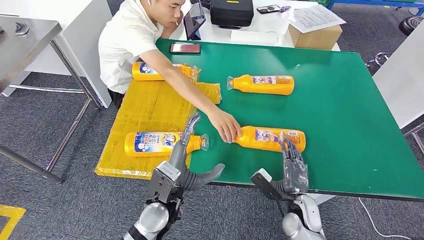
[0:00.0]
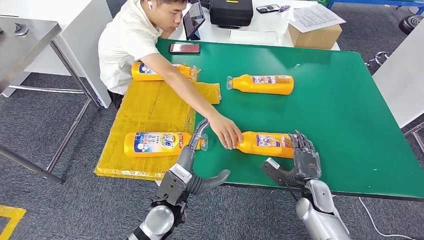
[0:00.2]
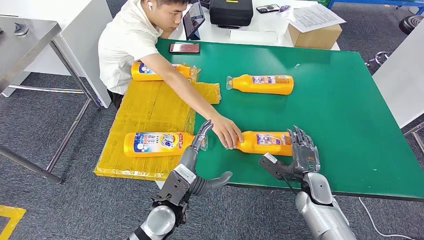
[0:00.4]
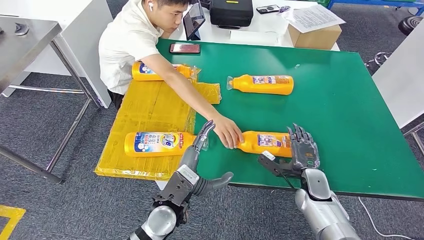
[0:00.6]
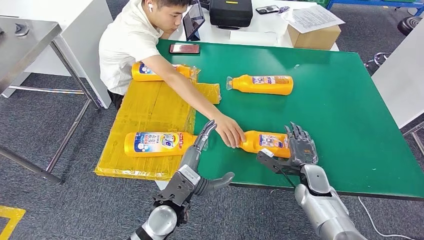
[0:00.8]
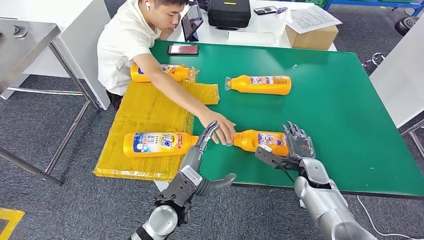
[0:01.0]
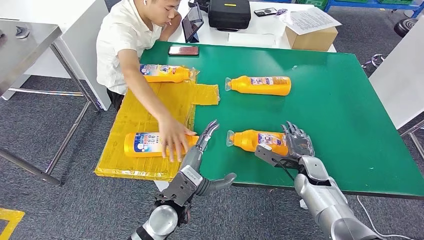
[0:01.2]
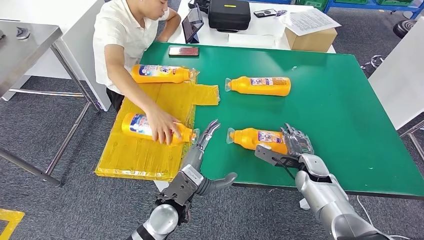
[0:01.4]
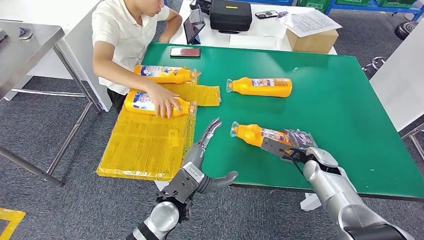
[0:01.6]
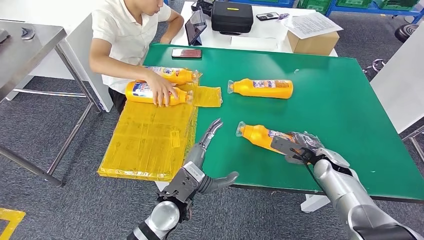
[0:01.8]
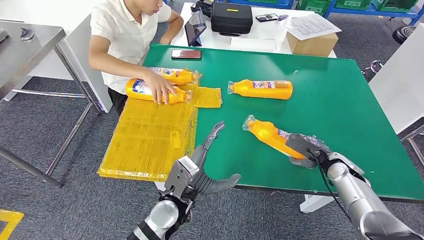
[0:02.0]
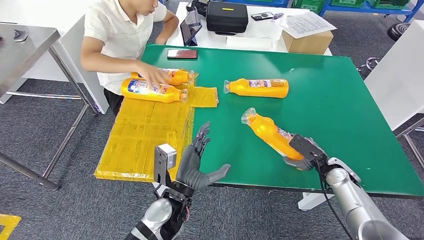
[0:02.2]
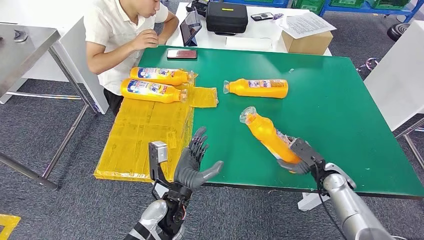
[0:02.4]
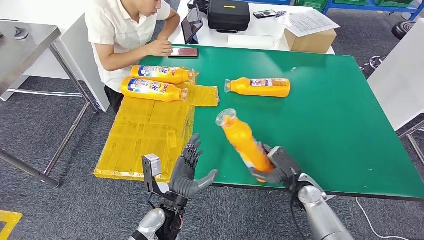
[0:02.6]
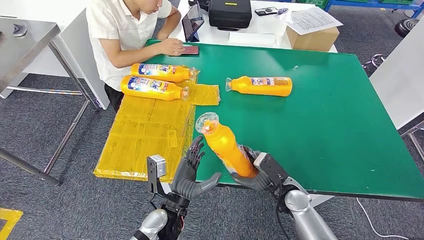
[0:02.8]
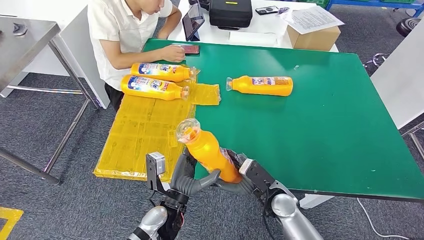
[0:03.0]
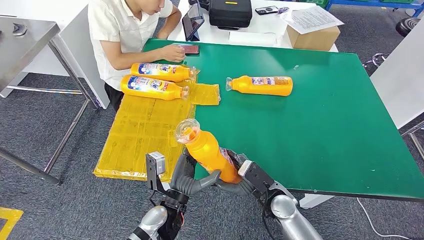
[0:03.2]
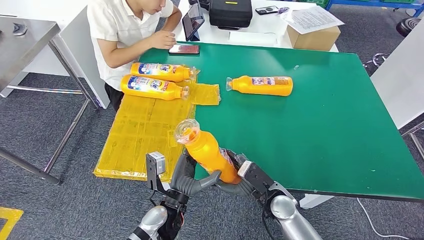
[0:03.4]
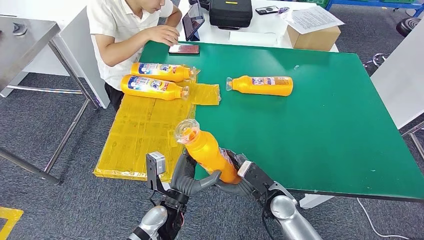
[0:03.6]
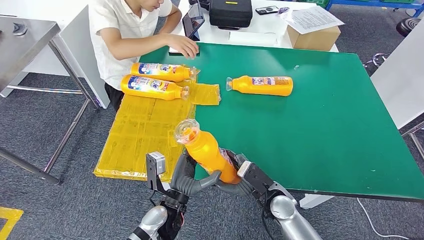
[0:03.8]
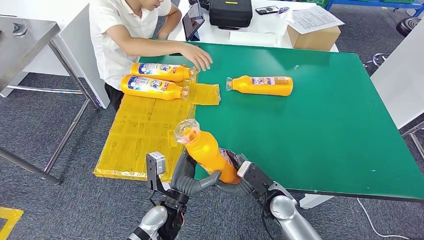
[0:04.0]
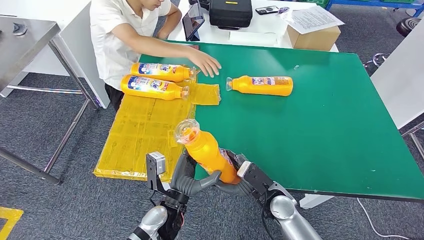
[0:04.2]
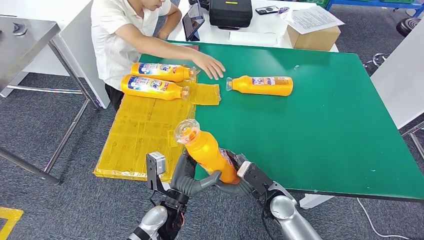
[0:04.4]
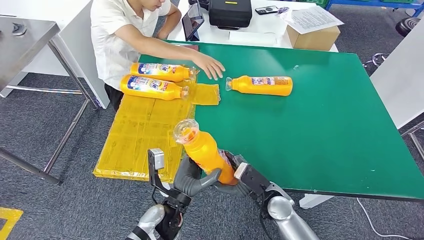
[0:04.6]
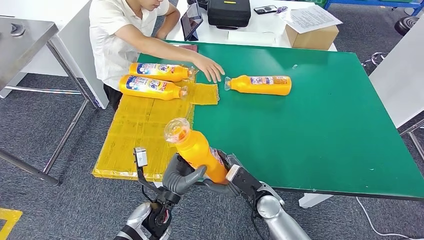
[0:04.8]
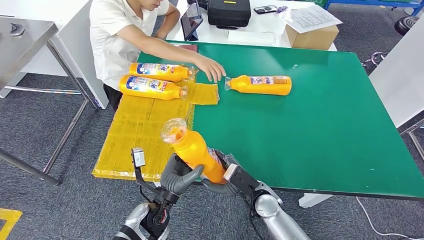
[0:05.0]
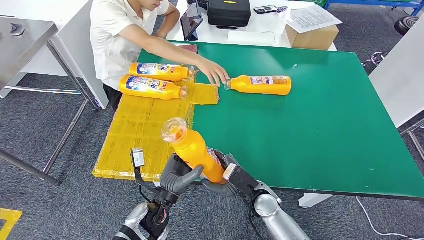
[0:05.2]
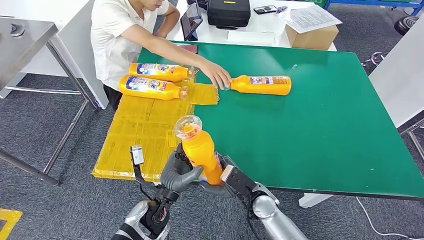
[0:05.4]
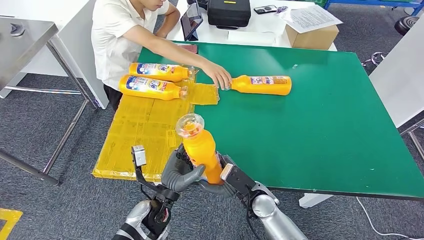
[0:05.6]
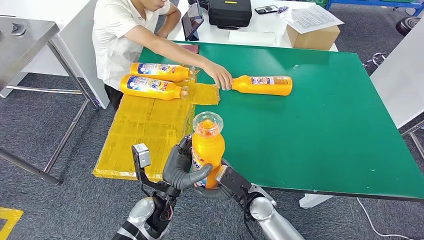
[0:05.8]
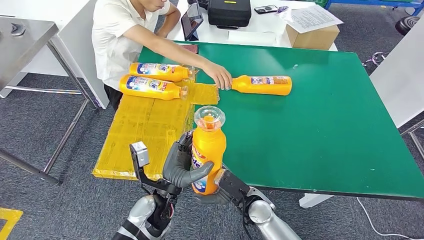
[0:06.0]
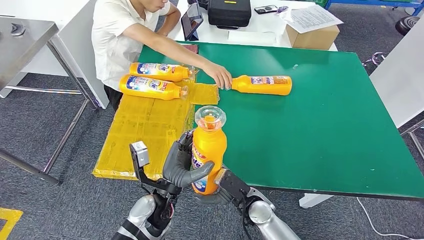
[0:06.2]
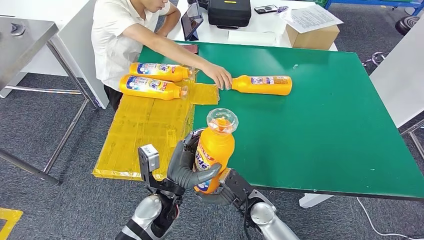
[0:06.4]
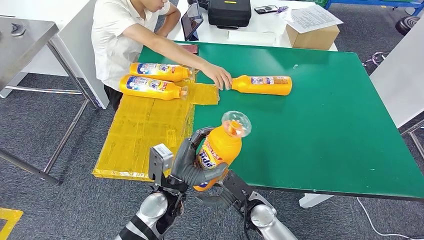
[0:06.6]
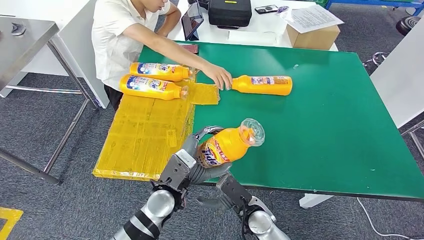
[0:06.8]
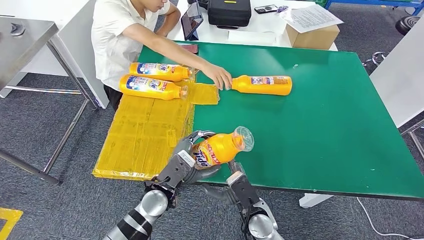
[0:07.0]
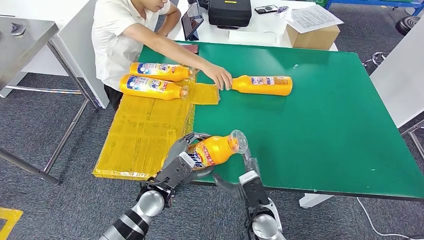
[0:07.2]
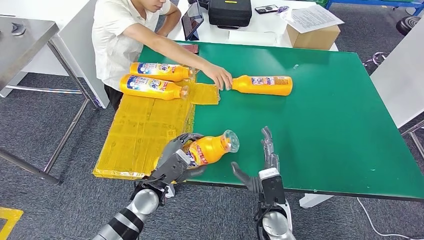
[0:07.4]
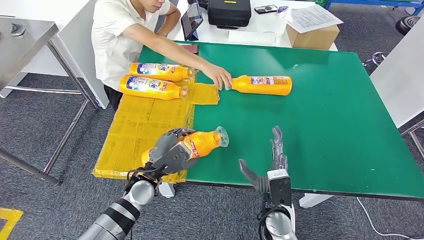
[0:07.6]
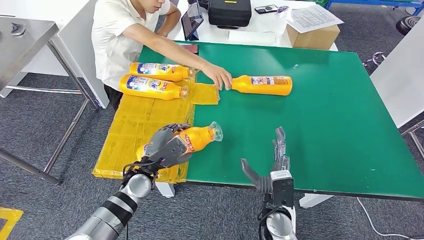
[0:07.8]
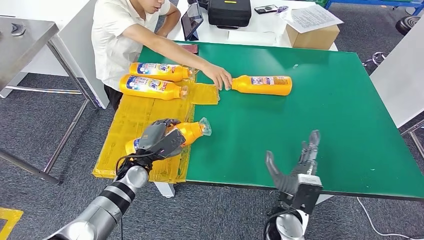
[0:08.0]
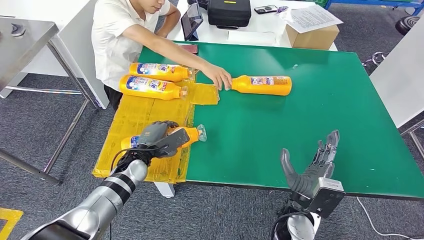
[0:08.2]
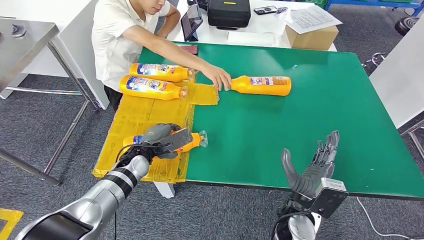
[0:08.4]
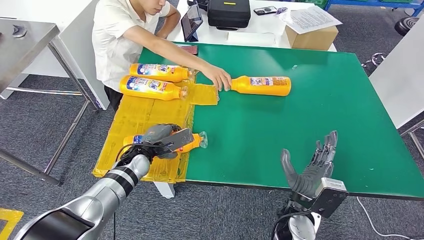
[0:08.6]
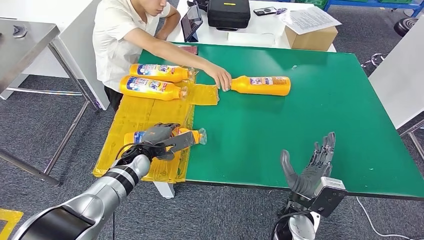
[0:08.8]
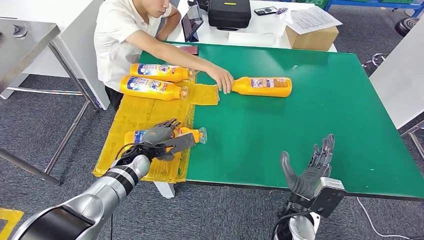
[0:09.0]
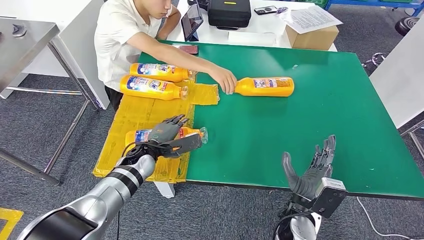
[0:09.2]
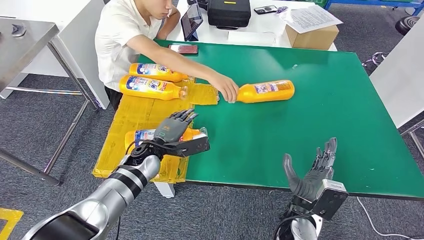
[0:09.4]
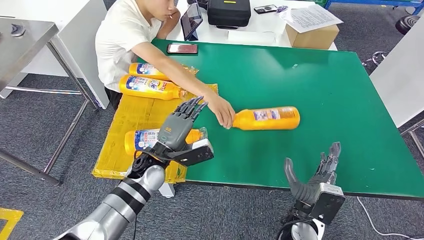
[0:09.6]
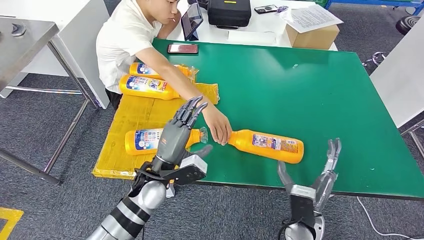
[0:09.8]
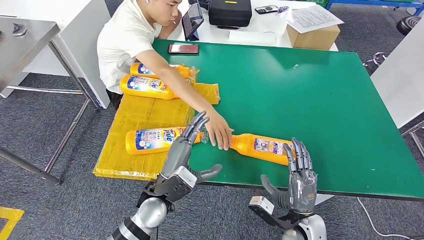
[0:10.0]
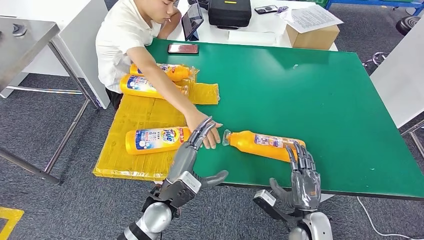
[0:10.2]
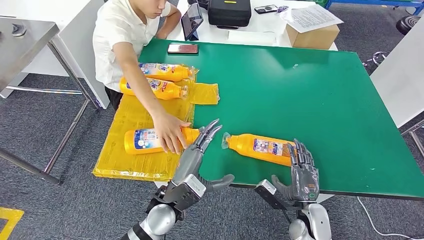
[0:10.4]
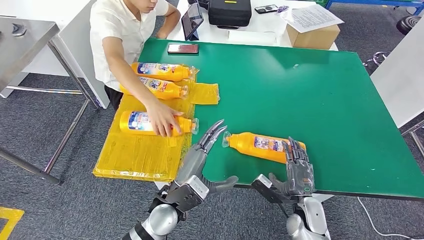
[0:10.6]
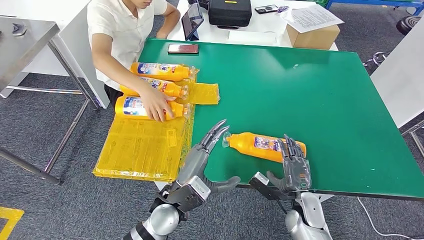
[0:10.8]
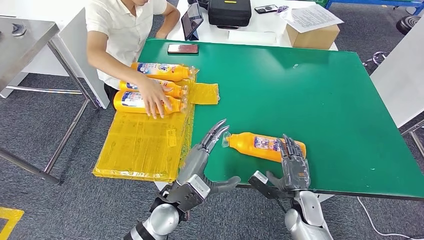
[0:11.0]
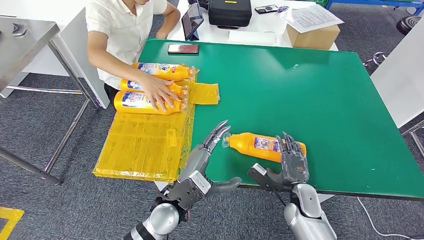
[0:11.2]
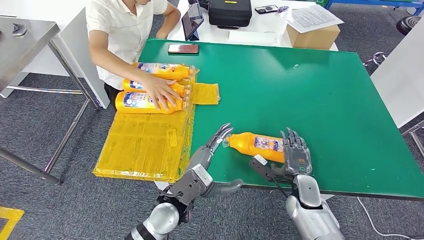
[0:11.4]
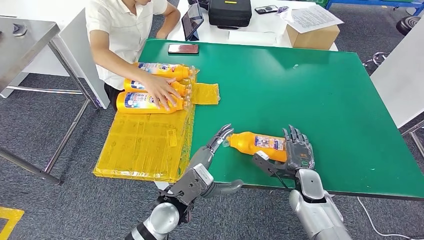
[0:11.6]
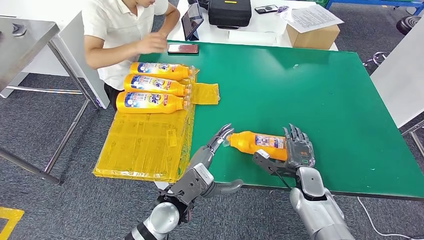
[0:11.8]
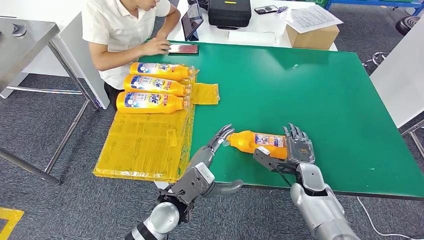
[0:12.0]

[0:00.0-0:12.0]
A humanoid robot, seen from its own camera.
Step, 0:00.0 to 0:02.8: Pick up the fast-moving consumer goods bottle from the table.
Step, 0:03.0 to 0:09.0: Flip the fast-moving consumer goods bottle to the front side.
0:03.0 to 0:04.4: Neither hand changes place.
0:04.4 to 0:06.0: The right hand heads to the left, covering roughly 5 cm.
0:06.0 to 0:07.6: The right hand changes place by some 5 cm. The left hand travels to the left and forward by approximately 10 cm.
0:10.4 to 0:12.0: The right hand goes about 10 cm forward.

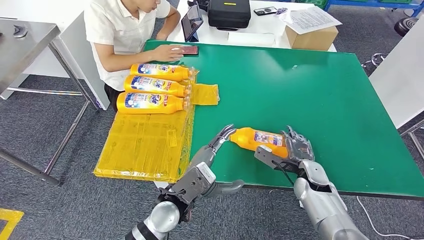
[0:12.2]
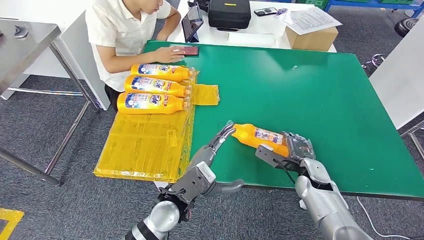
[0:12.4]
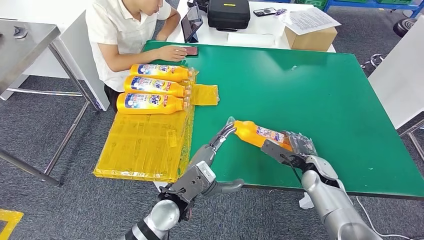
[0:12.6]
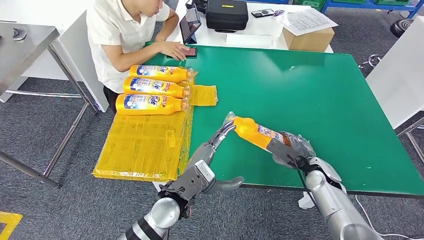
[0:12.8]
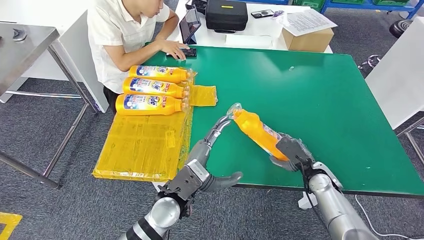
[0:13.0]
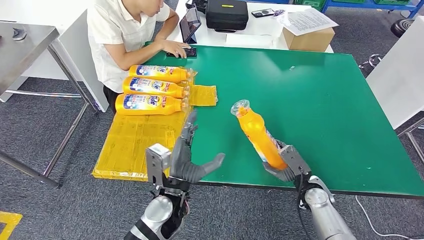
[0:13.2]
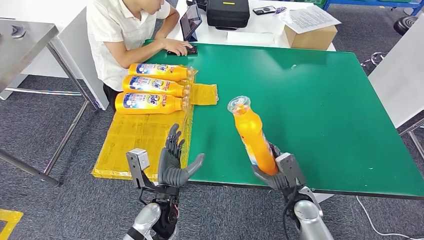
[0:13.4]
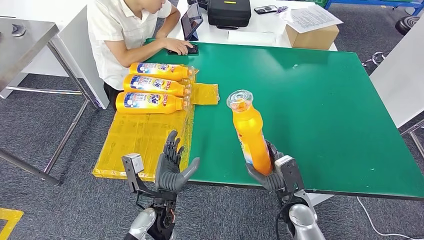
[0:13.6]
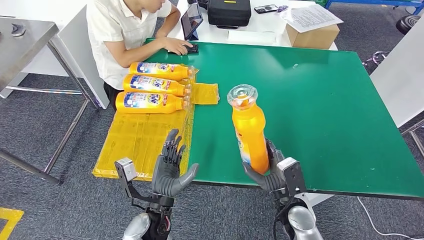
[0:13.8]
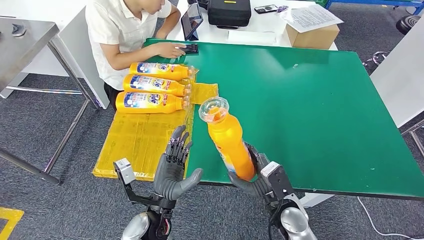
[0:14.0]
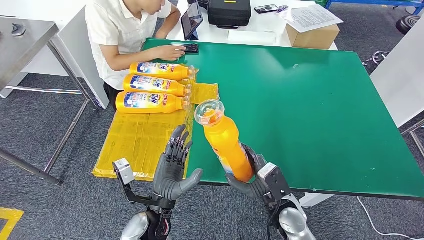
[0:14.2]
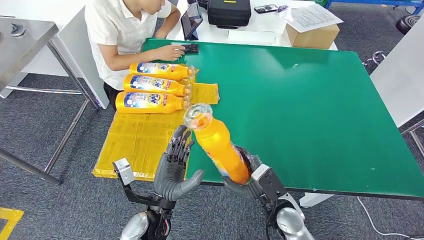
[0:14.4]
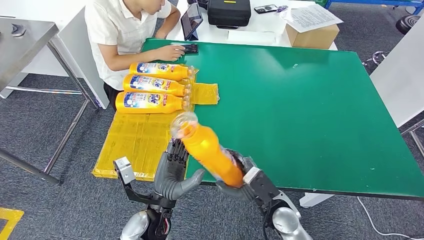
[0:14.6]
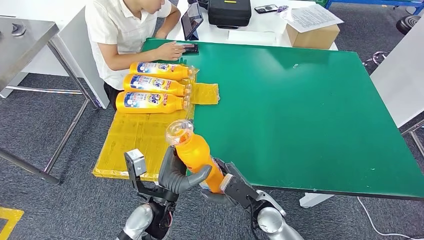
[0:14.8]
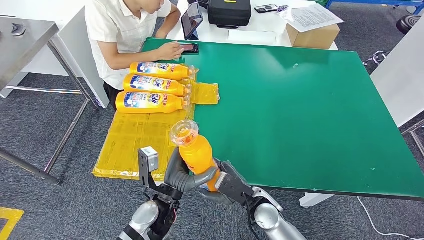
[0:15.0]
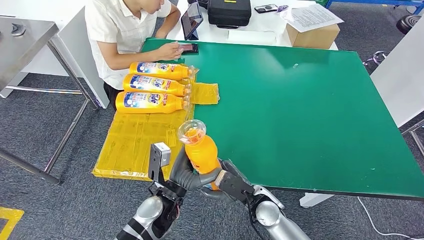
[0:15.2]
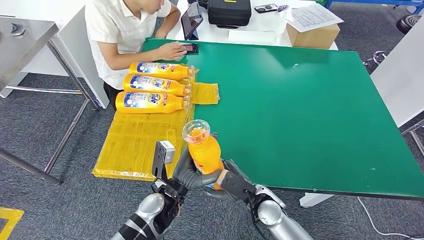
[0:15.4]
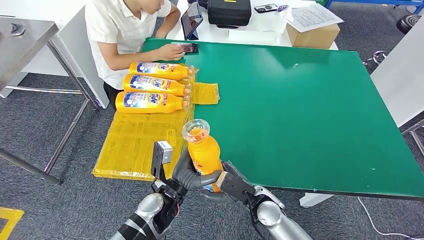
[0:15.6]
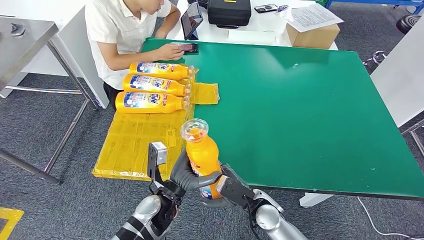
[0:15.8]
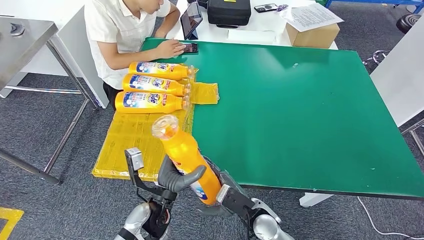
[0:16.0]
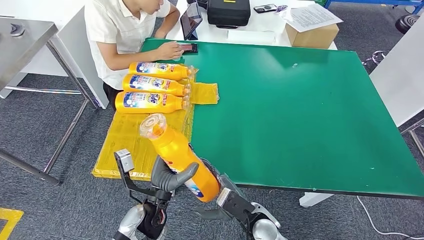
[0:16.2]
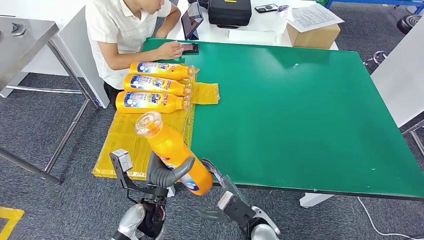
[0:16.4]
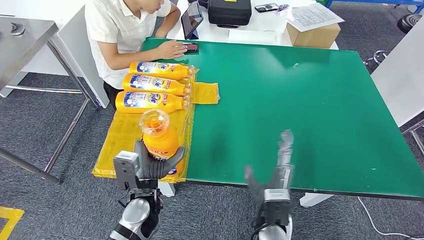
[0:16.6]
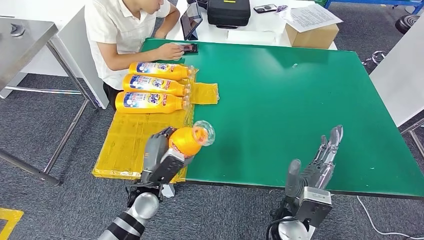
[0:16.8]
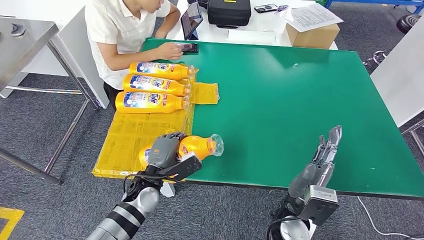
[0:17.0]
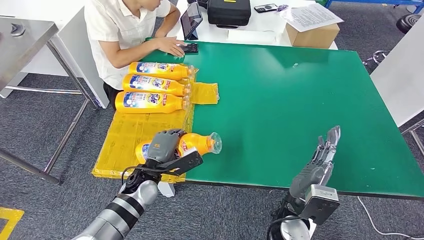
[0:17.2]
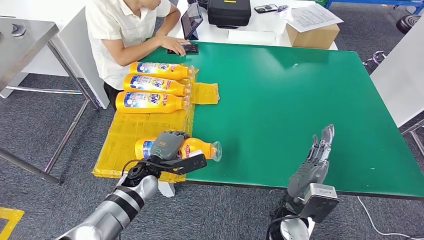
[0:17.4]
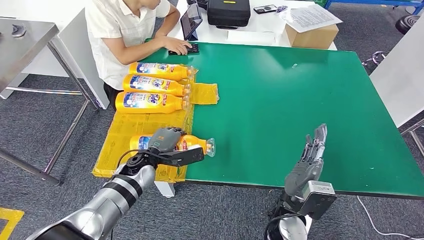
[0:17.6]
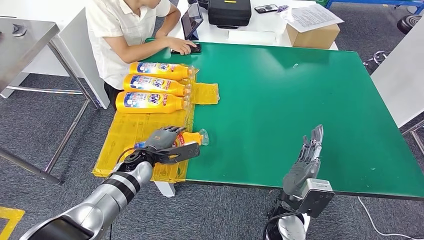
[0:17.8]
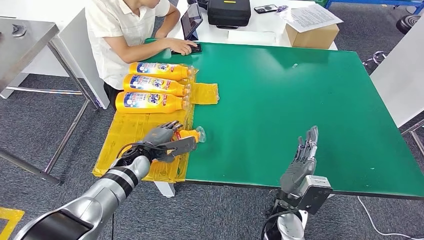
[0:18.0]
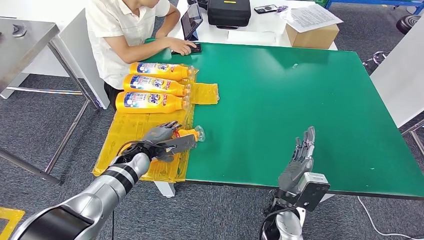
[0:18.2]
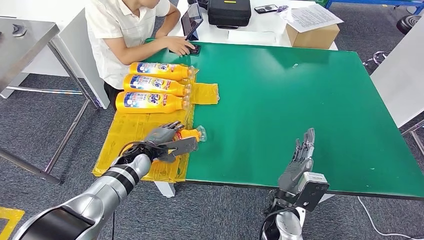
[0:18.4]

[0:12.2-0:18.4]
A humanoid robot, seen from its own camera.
Step, 0:12.2 to 0:15.6: Pick up the fast-moving consumer goods bottle from the table.
Step, 0:15.8 to 0:18.4: Flip the fast-moving consumer goods bottle to the front side.
0:13.8 to 0:15.4: The right hand travels to the left by some 5 cm.
0:15.4 to 0:16.8: The right hand goes roughly 5 cm upward. Meanwhile the left hand moves to the left, approximately 5 cm.
0:16.8 to 0:18.4: The left hand goes roughly 10 cm forward.
